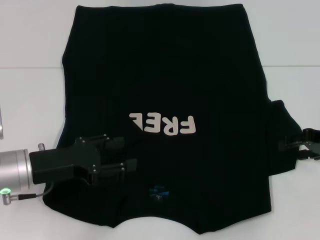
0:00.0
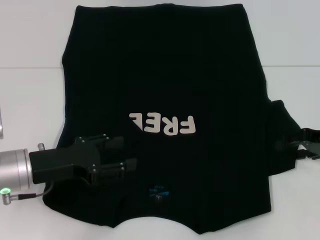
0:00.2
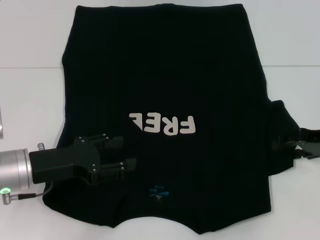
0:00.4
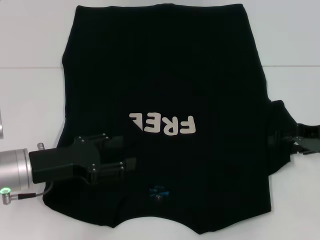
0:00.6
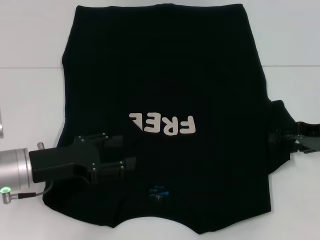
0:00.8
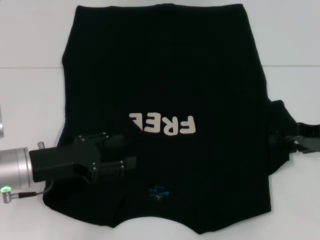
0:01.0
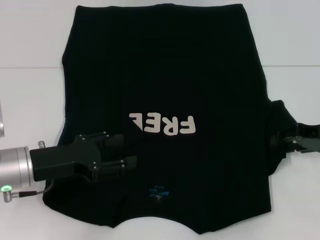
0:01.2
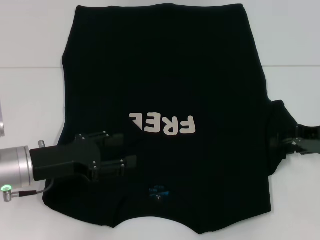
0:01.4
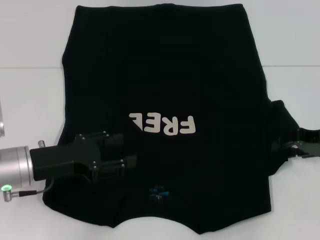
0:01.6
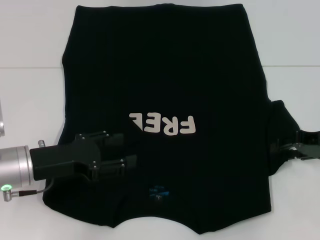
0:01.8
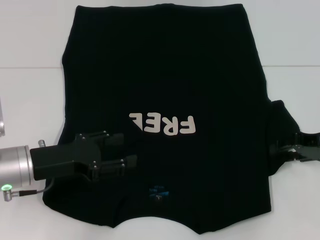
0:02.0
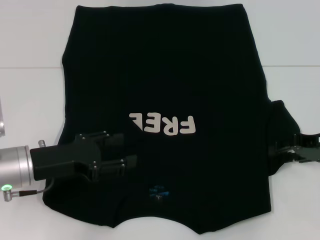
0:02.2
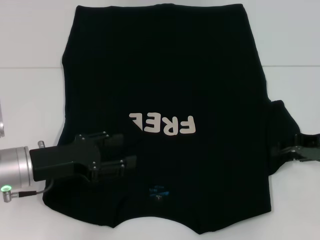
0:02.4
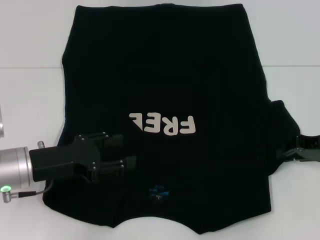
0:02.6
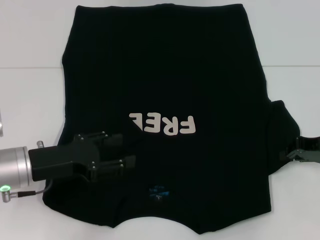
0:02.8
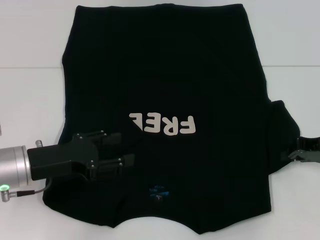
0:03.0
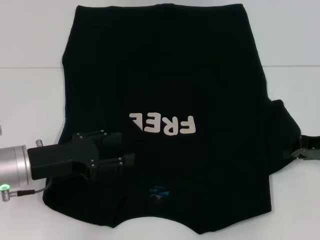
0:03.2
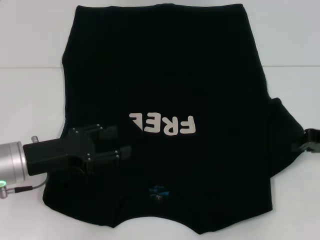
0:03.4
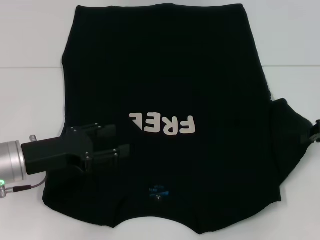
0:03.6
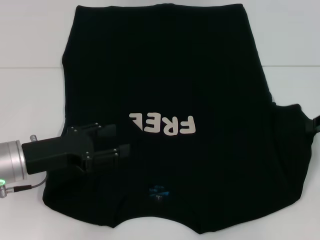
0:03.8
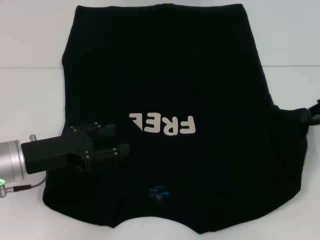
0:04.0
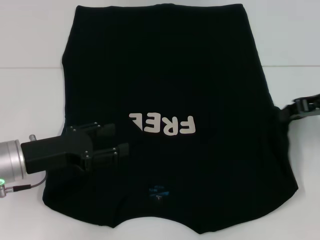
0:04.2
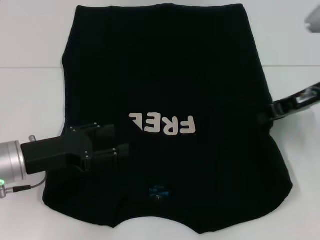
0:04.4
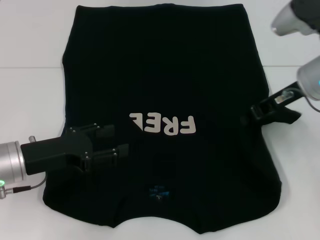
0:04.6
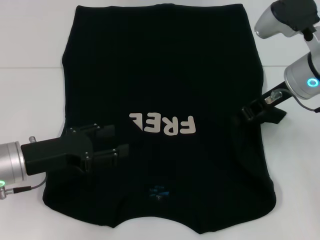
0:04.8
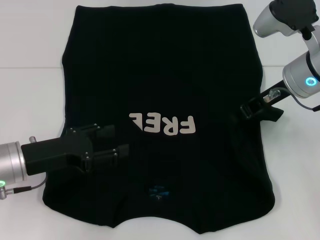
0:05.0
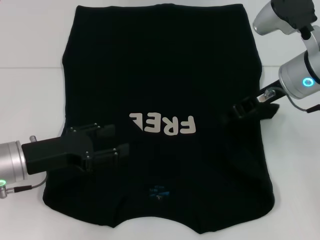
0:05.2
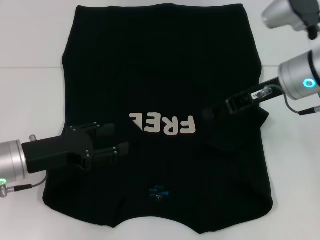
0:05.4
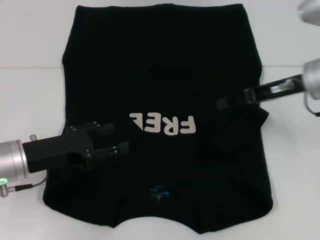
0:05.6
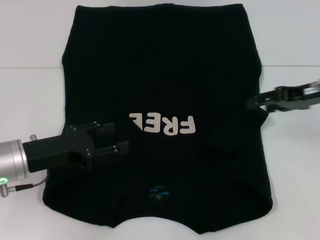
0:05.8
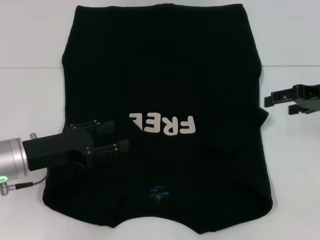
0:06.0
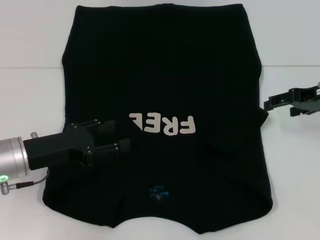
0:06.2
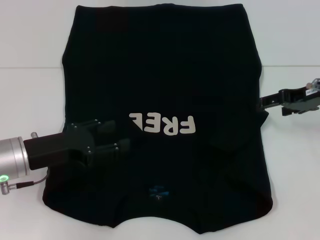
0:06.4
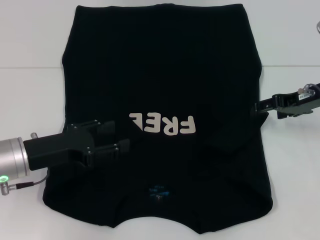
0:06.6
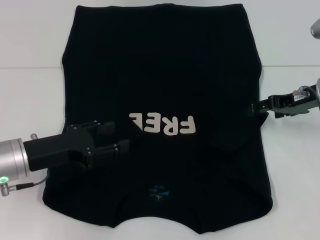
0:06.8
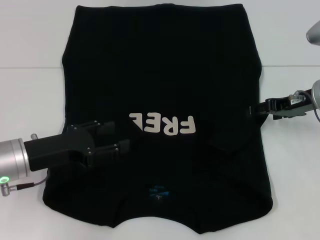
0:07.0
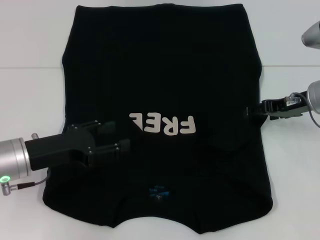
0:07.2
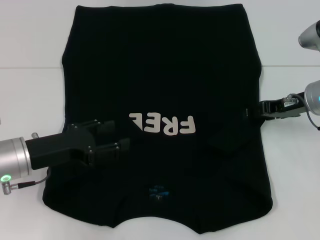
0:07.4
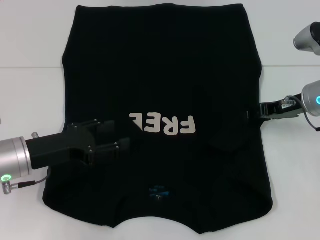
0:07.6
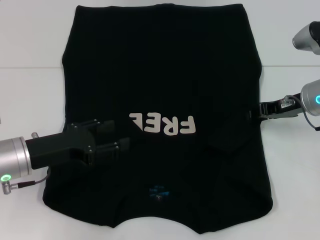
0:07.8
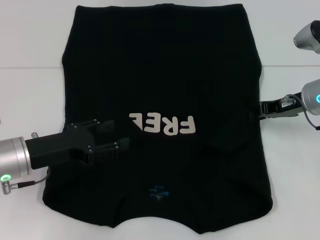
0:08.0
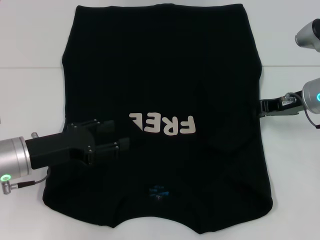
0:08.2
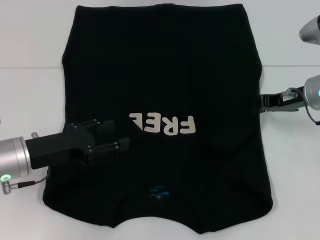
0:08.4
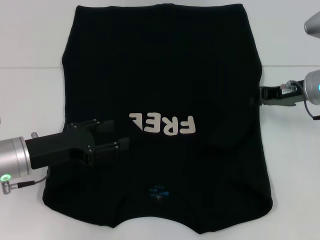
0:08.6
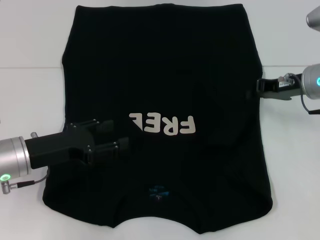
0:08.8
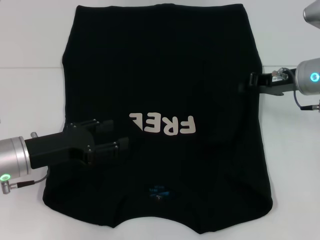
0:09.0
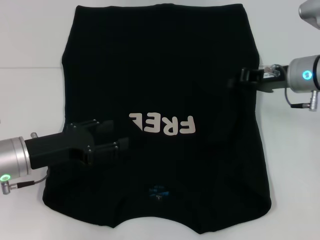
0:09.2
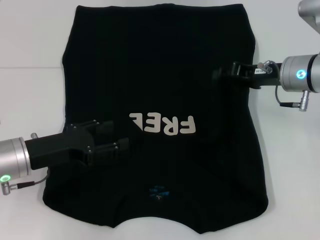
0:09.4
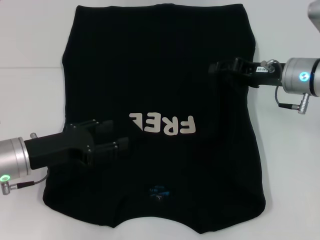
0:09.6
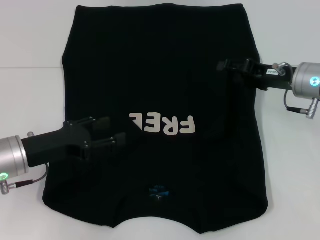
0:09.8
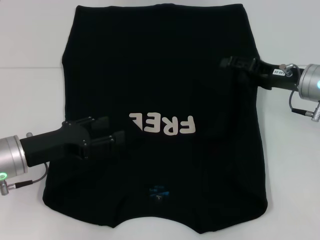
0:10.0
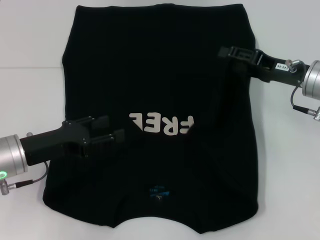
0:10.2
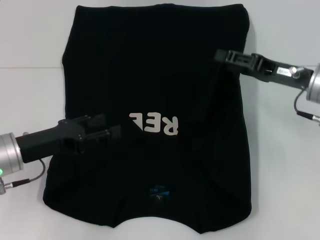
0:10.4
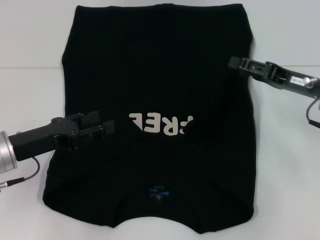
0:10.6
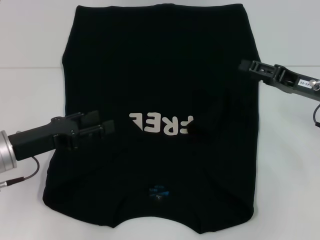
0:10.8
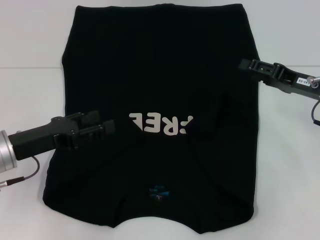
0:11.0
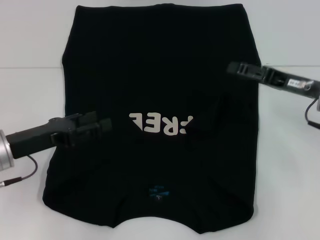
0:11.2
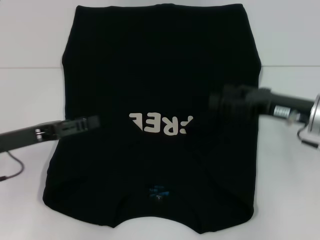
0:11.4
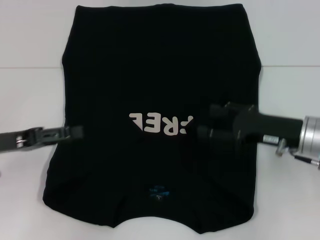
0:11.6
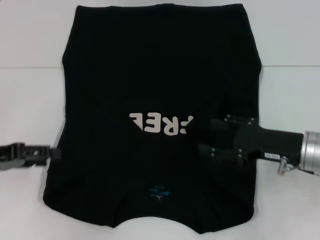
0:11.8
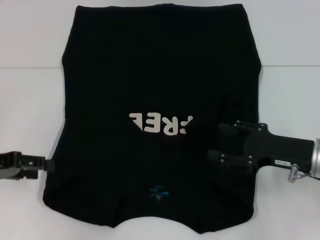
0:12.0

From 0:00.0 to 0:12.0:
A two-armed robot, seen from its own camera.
Step, from 0:00.0 to 0:10.8: Fold the bottom right sleeve with your right hand.
From 0:00.0 to 0:01.6: The two grippers keep their place.
From 0:01.6 to 0:03.0: The right gripper closes up.
From 0:03.0 to 0:04.4: The right gripper shifts about 10 cm upward and to the left.
From 0:04.4 to 0:06.0: The right gripper is displaced to the right by roughly 5 cm, and opens its fingers.
From 0:06.0 to 0:07.6: The right gripper travels to the left by approximately 5 cm.
From 0:07.6 to 0:09.0: The right gripper closes.
From 0:09.0 to 0:10.4: The right gripper opens.
From 0:10.4 to 0:12.0: The left gripper travels to the left by about 10 cm, while the right gripper is displaced backward and downward by some 10 cm.

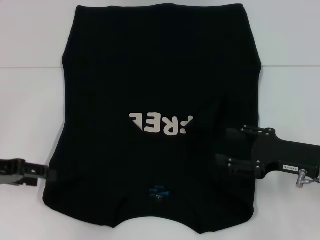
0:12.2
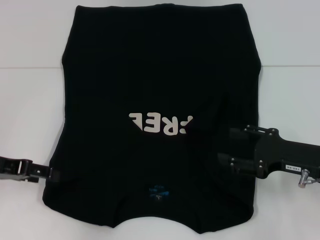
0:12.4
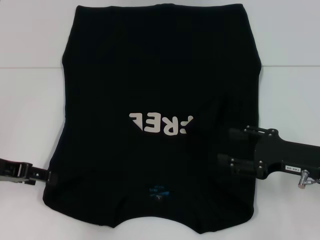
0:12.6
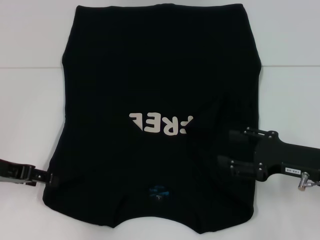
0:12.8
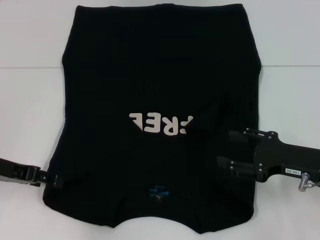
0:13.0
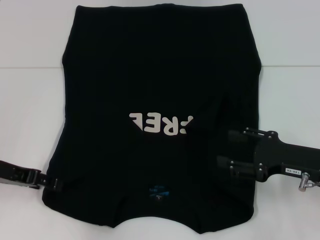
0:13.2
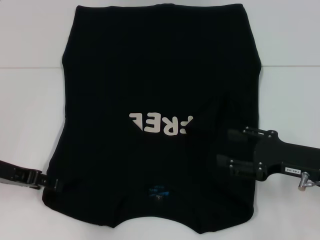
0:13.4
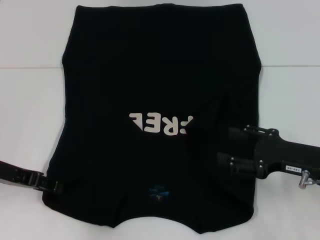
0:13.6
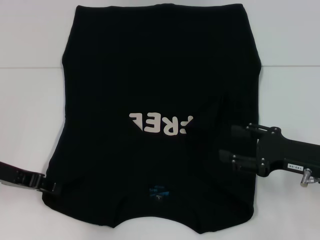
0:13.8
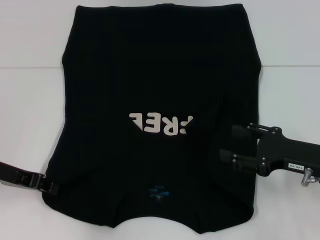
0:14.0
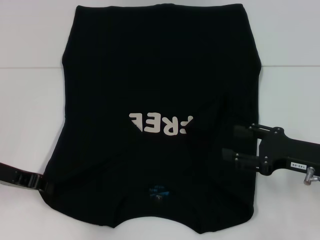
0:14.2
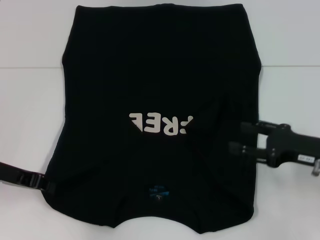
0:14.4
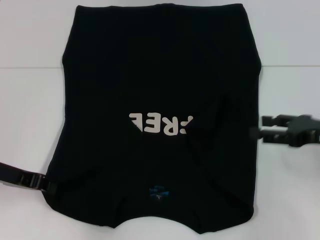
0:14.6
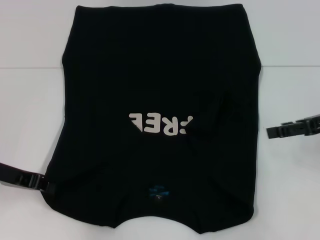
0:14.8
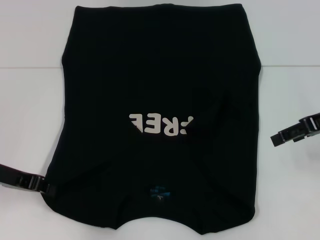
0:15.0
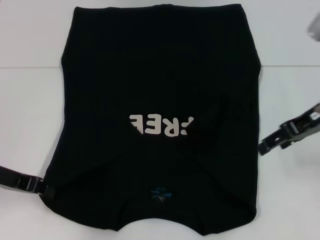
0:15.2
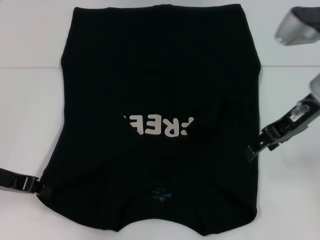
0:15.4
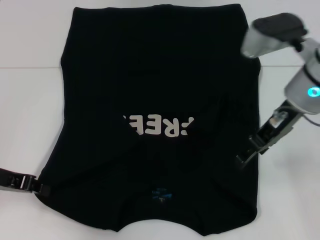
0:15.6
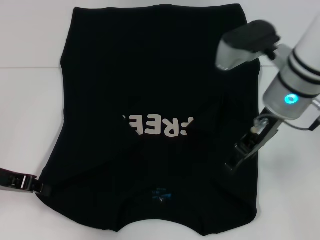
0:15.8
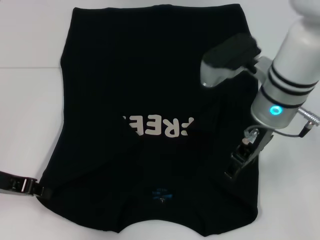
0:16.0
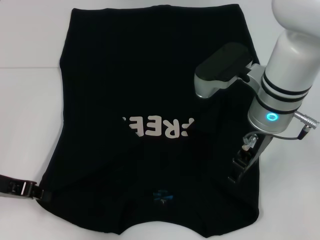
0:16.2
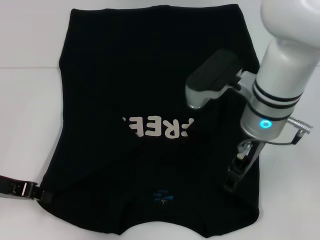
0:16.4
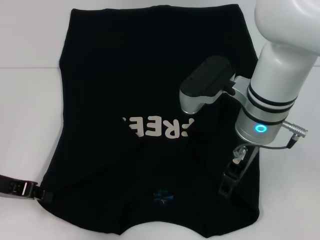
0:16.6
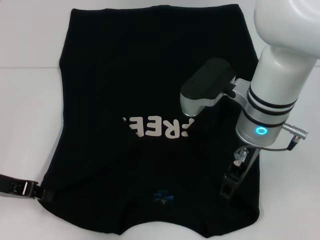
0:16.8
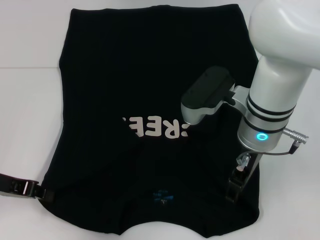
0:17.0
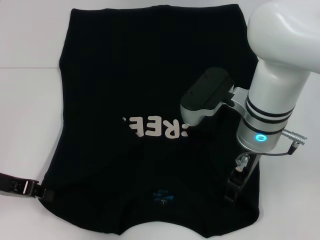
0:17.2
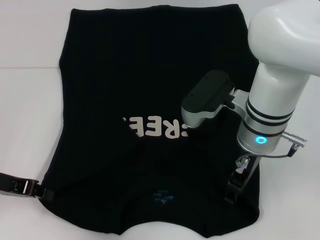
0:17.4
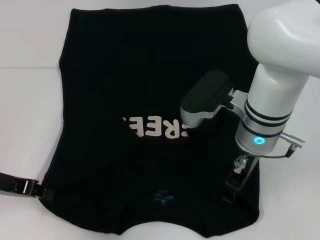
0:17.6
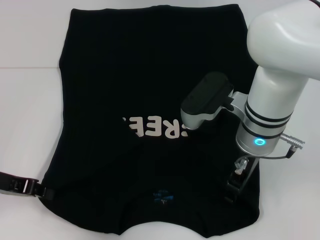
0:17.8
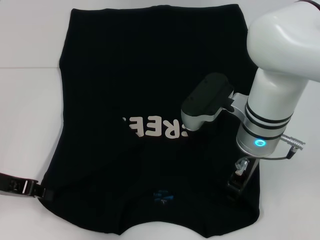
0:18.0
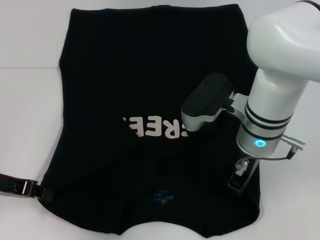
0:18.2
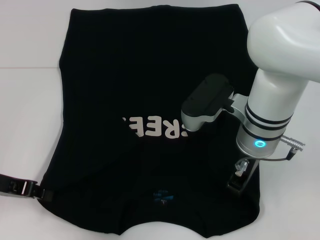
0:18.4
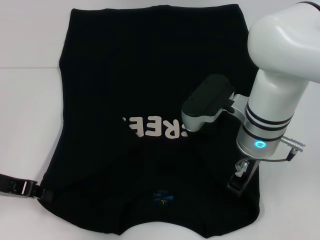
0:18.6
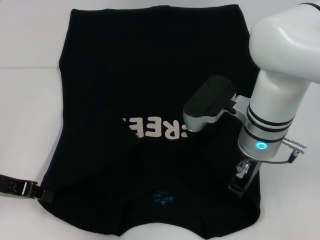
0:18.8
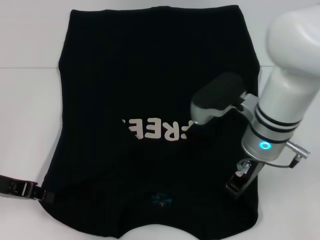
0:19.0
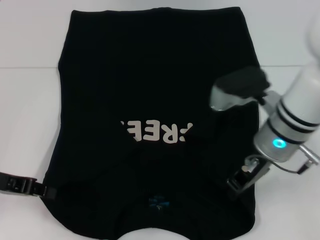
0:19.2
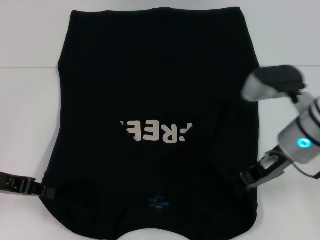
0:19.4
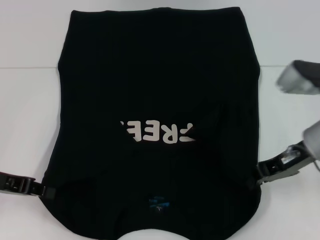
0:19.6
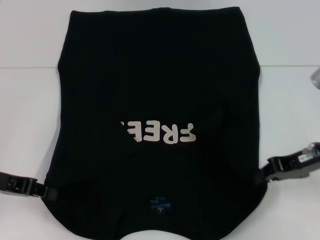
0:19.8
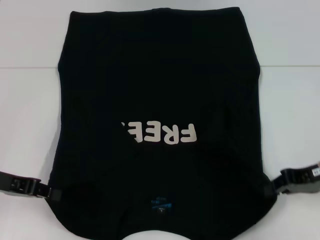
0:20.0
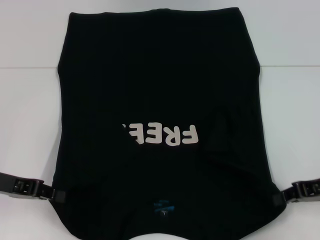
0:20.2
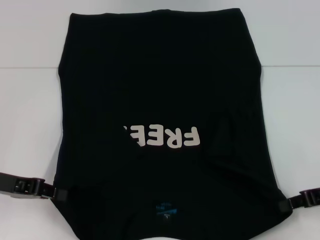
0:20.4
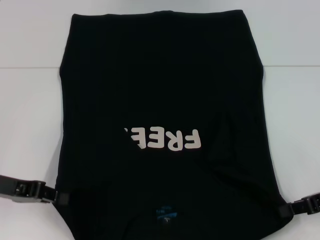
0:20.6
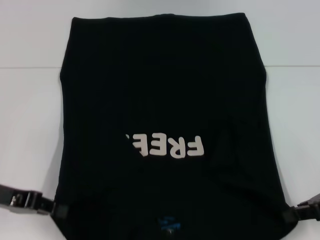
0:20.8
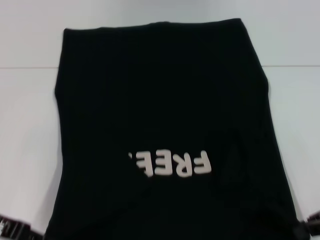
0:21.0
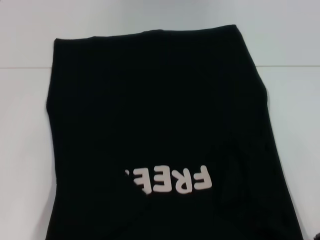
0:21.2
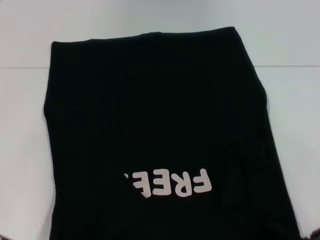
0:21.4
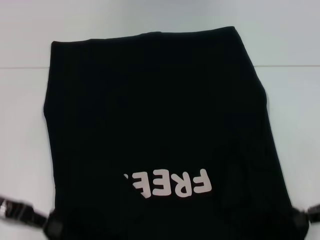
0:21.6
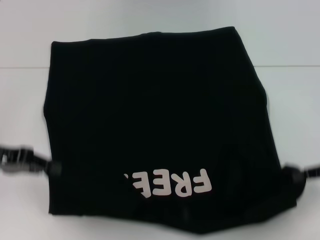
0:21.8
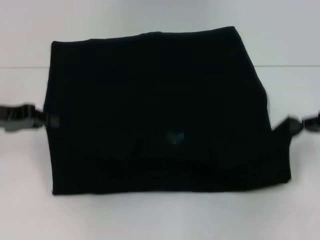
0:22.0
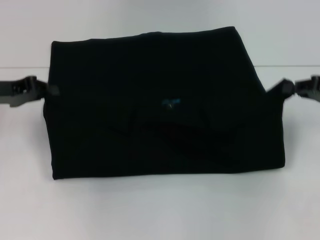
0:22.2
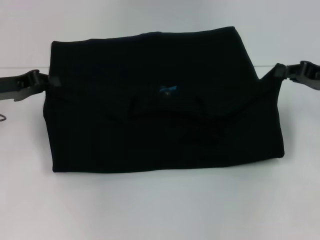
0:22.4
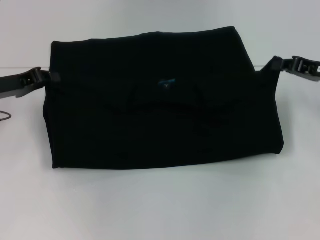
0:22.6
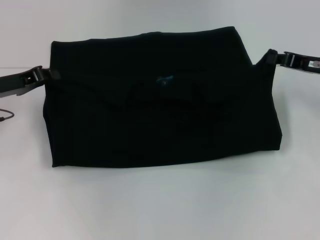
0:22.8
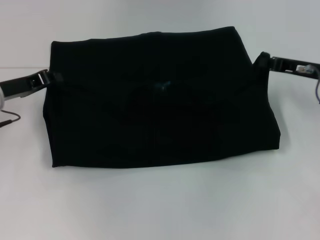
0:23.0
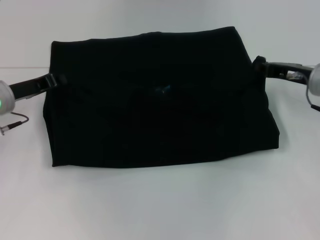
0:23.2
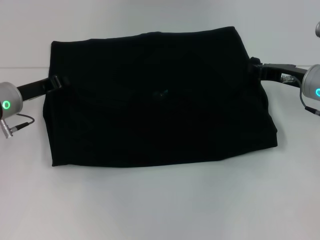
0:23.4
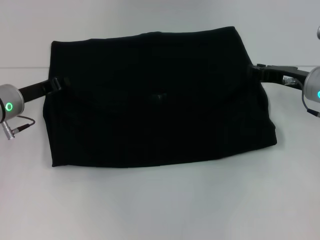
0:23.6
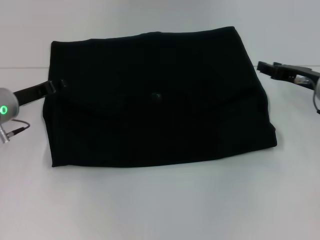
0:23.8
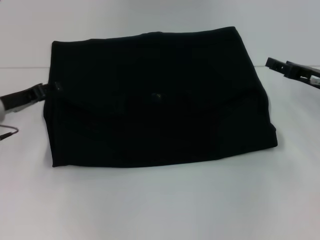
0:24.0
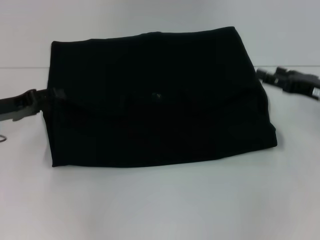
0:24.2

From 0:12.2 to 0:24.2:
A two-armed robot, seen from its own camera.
Step, from 0:12.2 to 0:14.6: Grab the bottom left corner with your left hand.
Step, from 0:14.8 to 0:19.8: Grab the bottom right corner with your right hand.
Step, from 0:20.0 to 0:24.2: Fold the clothes with your left hand.
Step, from 0:20.0 to 0:24.2: Fold the clothes with your right hand.
From 0:12.2 to 0:13.8: The grippers stay close to where they were, moving slightly.
From 0:13.8 to 0:15.2: The right gripper goes roughly 15 cm upward and forward, while the left gripper closes its fingers.
From 0:15.2 to 0:16.6: The right gripper goes about 15 cm to the left.
From 0:16.6 to 0:18.2: The grippers stay close to where they were, moving slightly.
From 0:18.2 to 0:19.8: The right gripper goes some 15 cm to the right, and closes.
From 0:19.8 to 0:21.2: The right gripper heads to the right and backward, covering about 10 cm.
From 0:21.2 to 0:22.6: Both grippers move forward, roughly 15 cm.
From 0:22.6 to 0:24.2: The right gripper opens up. Meanwhile the left gripper opens its fingers.
